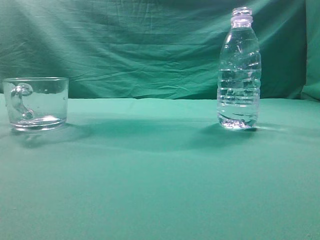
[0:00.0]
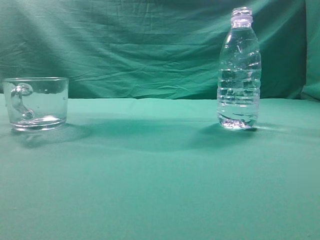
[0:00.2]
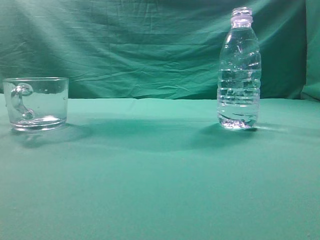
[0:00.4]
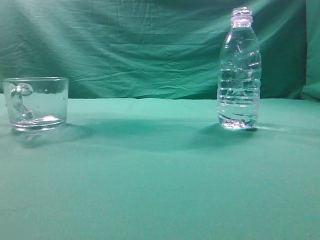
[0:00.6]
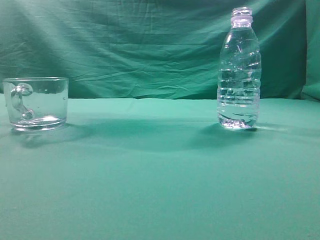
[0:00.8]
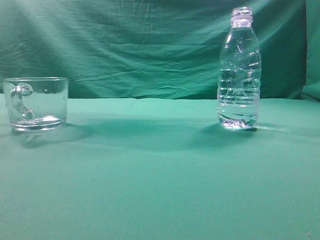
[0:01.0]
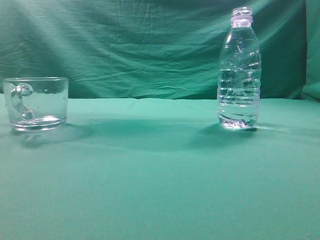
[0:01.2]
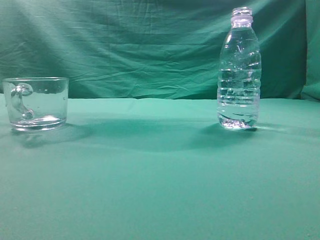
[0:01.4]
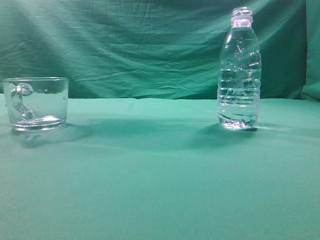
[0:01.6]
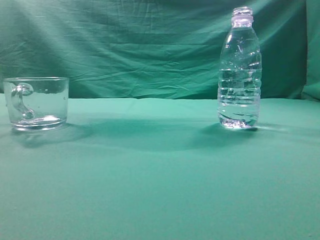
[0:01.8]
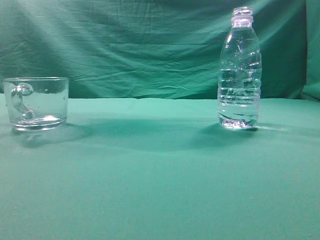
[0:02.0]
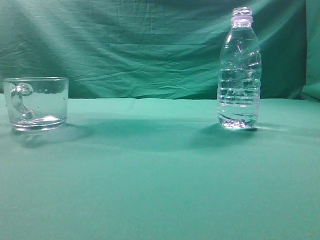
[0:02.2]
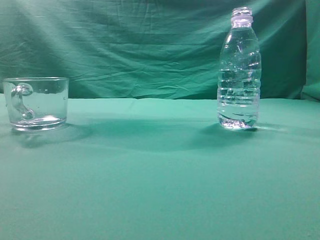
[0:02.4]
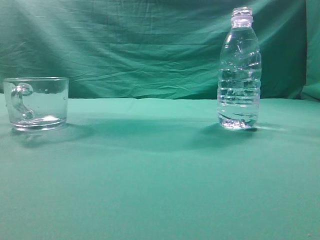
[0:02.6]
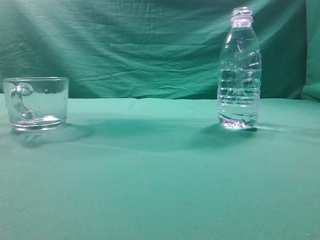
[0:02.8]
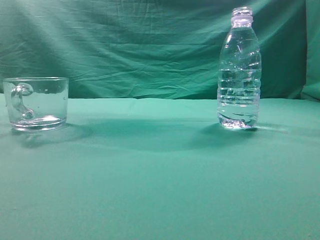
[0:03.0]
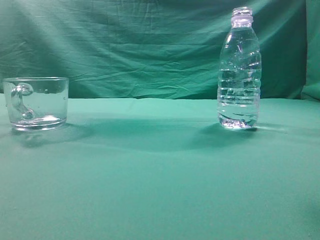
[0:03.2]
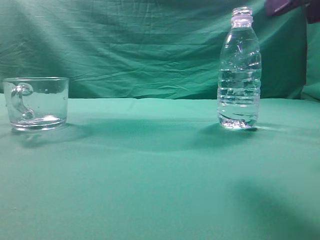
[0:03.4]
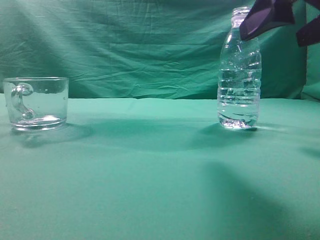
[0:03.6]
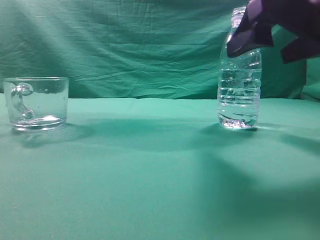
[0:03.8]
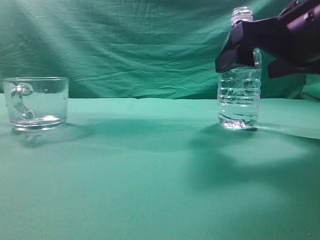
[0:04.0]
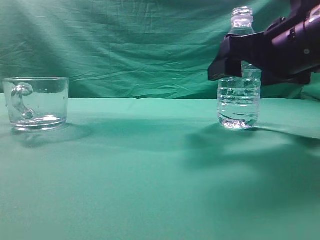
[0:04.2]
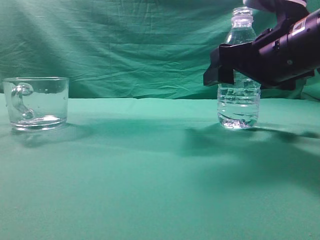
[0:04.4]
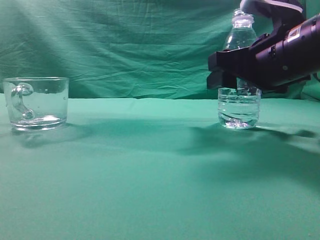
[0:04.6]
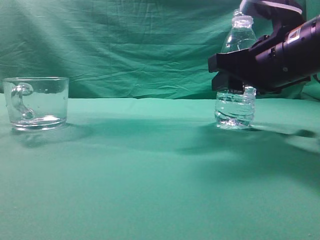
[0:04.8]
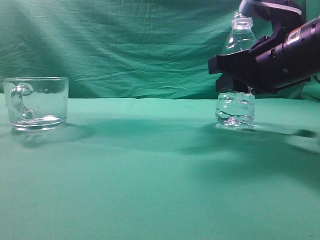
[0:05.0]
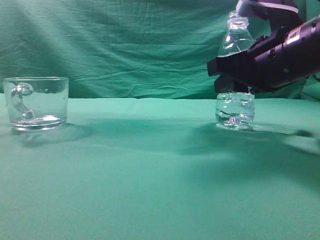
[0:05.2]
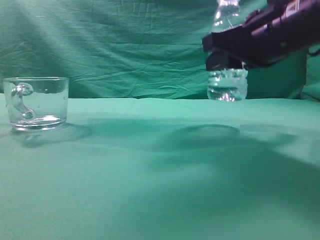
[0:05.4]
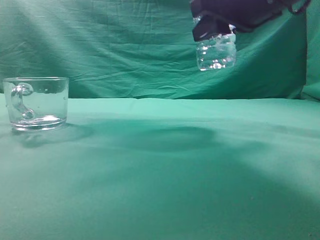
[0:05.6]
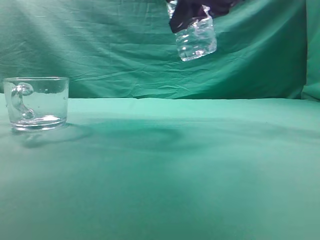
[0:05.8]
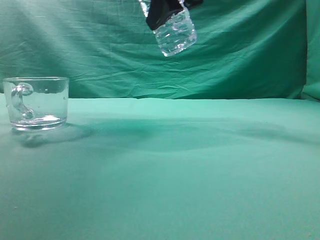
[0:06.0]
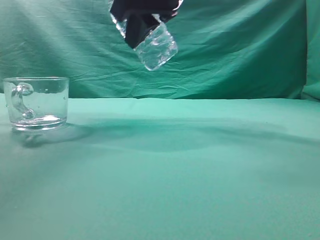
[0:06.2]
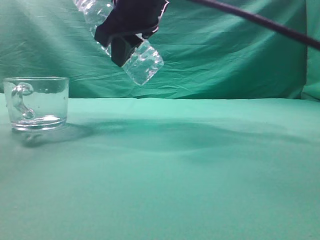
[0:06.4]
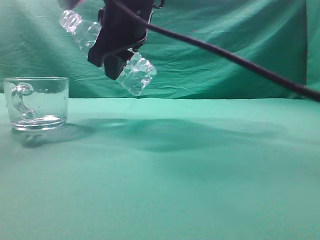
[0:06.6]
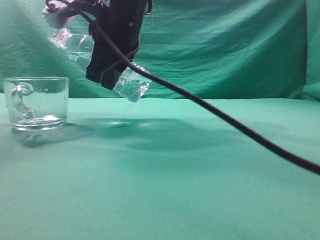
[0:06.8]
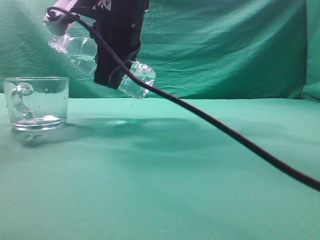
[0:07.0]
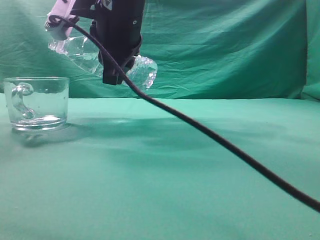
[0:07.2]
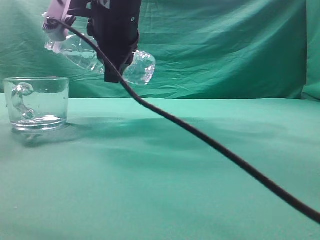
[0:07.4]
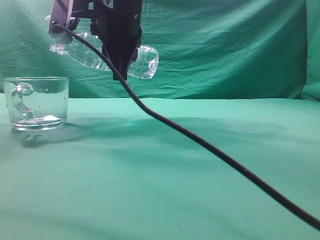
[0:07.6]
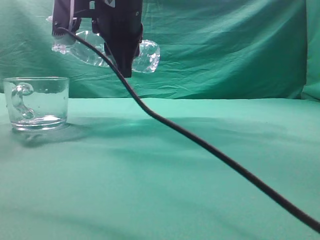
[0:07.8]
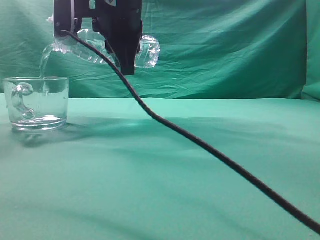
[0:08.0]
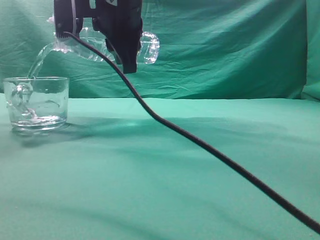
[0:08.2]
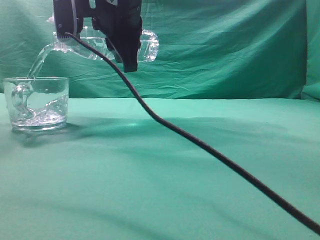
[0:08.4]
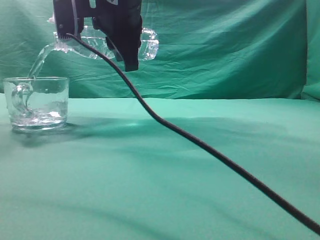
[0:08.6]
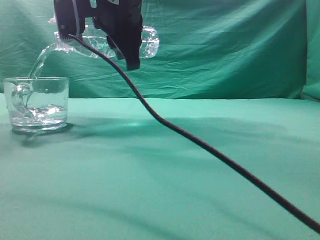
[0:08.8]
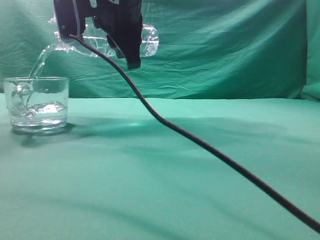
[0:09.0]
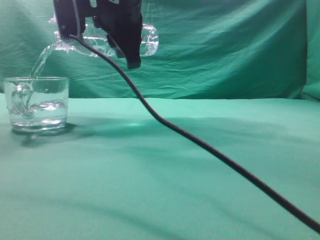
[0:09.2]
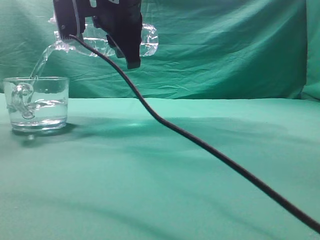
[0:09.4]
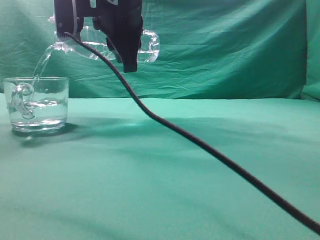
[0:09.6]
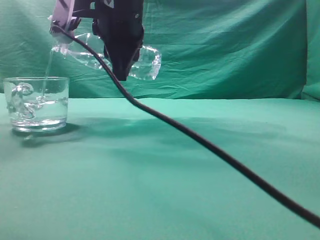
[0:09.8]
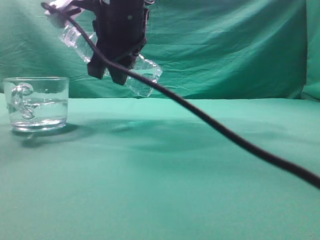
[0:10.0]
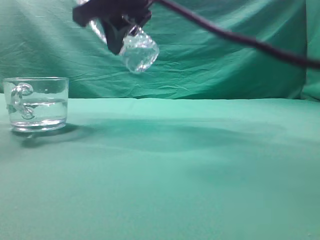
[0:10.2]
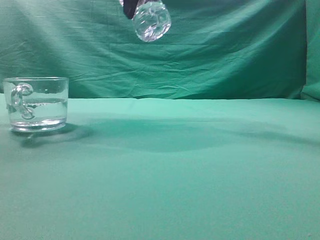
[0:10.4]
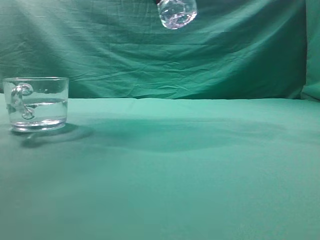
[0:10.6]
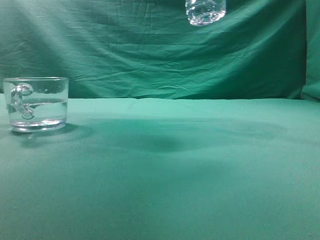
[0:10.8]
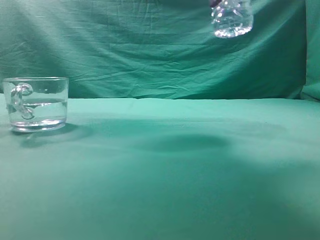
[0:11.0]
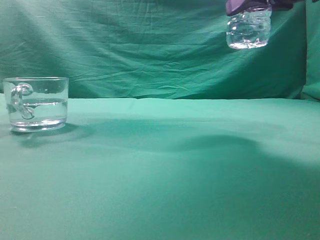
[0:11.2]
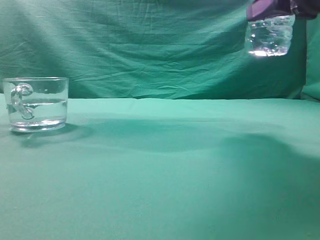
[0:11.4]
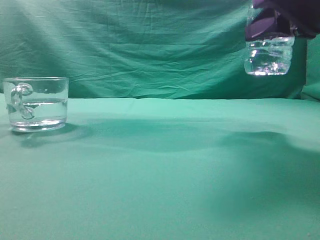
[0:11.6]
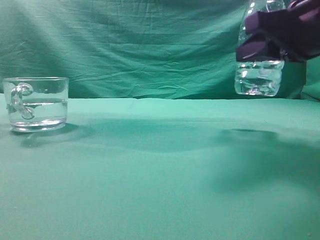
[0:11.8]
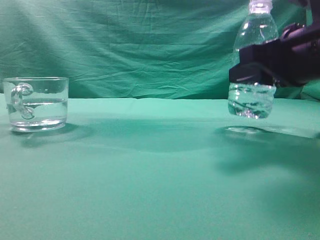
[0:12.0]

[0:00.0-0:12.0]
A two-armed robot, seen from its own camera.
Task of the whole recording: pick up the water bottle and pour the water in it into the glass.
Step, 0:00.0 to 0:05.4: Grasp the mineral water bottle.
Step, 0:05.6 to 0:10.0: Pour water into the teacup.
0:03.0 to 0:04.4: The right gripper heads forward, downward and to the left, covering about 20 cm, and opens its fingers.
0:04.4 to 0:06.0: The right gripper travels upward and to the left by roughly 15 cm, and closes up.
0:06.0 to 0:07.6: The right gripper travels to the left and downward by roughly 10 cm.
0:07.6 to 0:09.0: The grippers stay close to where they were, moving slightly.
0:09.0 to 0:10.4: The right gripper is displaced upward and to the right by roughly 10 cm.
0:10.4 to 0:12.0: The right gripper heads downward and to the right, covering some 25 cm.

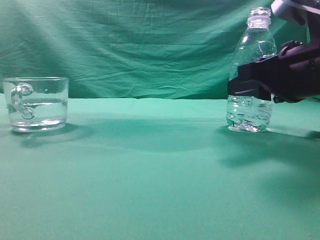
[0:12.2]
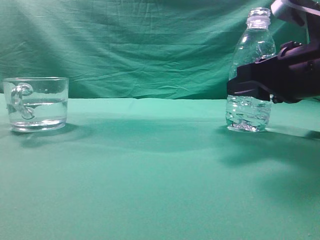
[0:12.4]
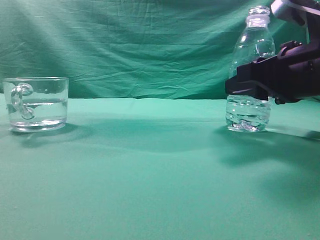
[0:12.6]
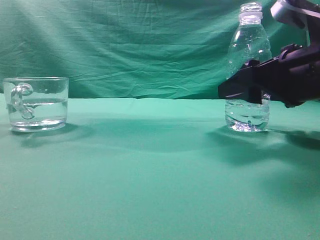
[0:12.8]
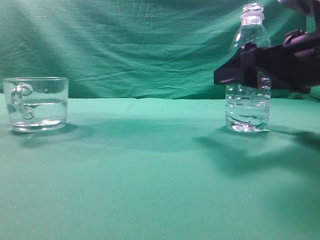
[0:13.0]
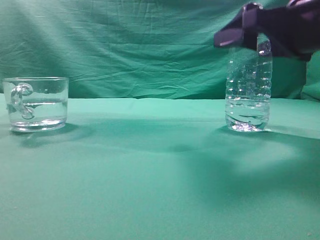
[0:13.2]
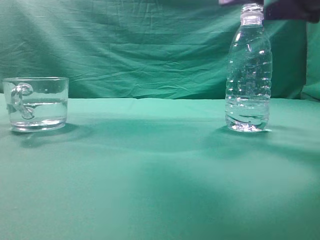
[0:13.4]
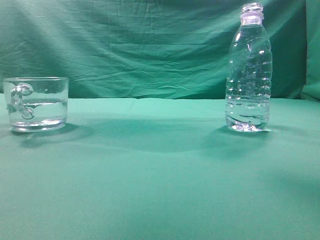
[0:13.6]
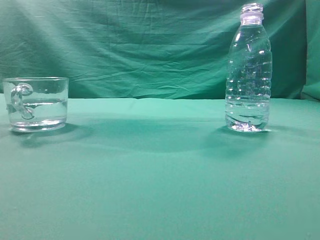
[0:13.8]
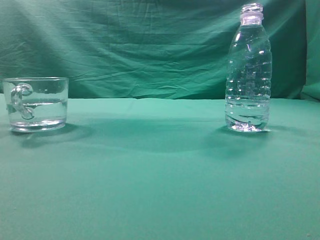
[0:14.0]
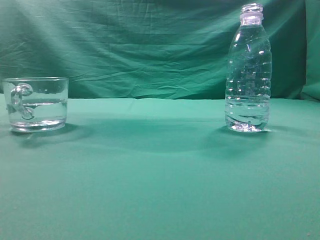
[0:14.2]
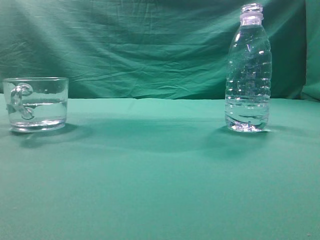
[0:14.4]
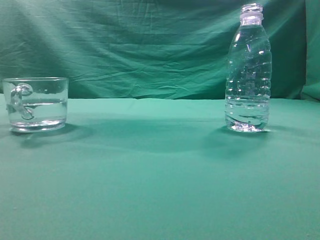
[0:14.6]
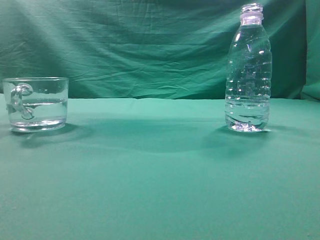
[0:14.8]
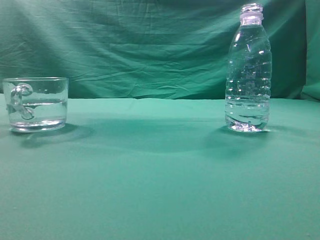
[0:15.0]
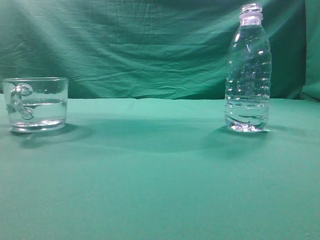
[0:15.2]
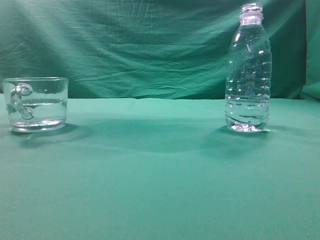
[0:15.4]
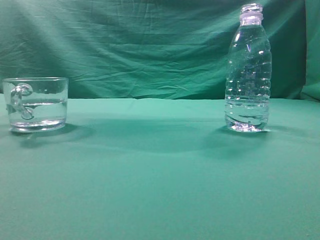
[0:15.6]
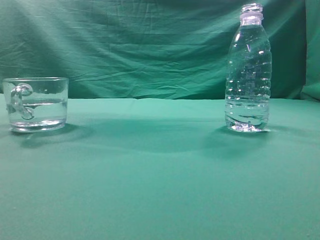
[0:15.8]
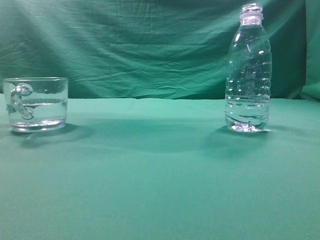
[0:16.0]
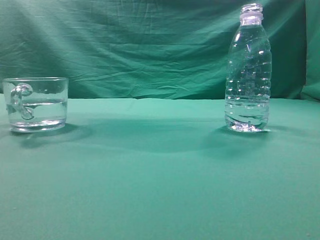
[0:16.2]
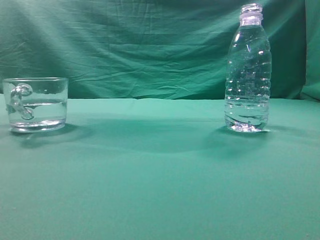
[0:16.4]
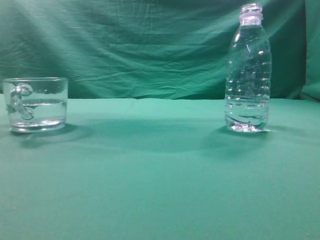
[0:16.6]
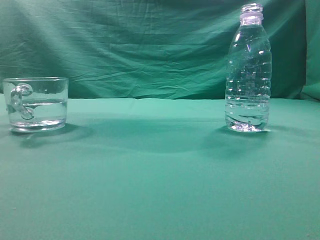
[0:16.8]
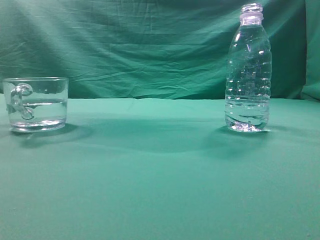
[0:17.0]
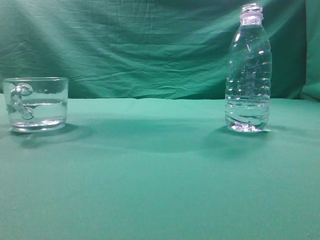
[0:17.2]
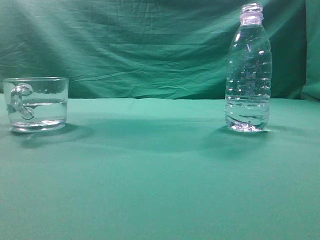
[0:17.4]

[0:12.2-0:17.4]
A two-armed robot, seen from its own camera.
Task of the whole recording: pick up the water bottle and pour the water in it into the glass.
0:12.2 to 0:14.0: The right gripper goes approximately 25 cm upward and backward, and opens, then closes once more.
